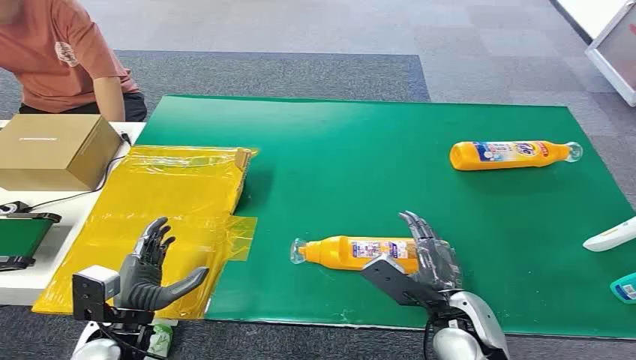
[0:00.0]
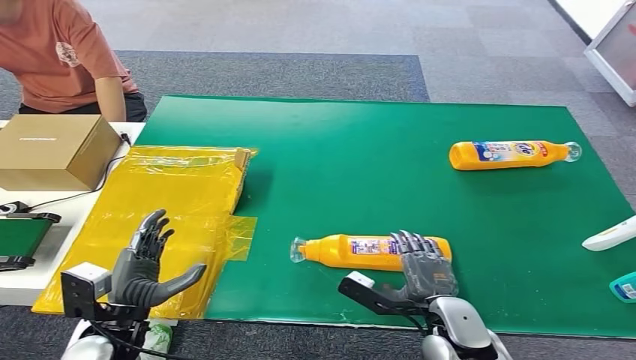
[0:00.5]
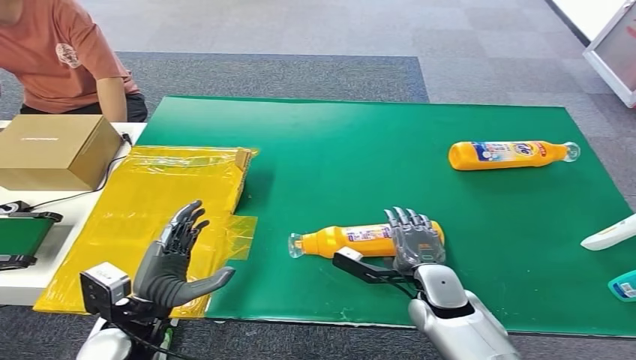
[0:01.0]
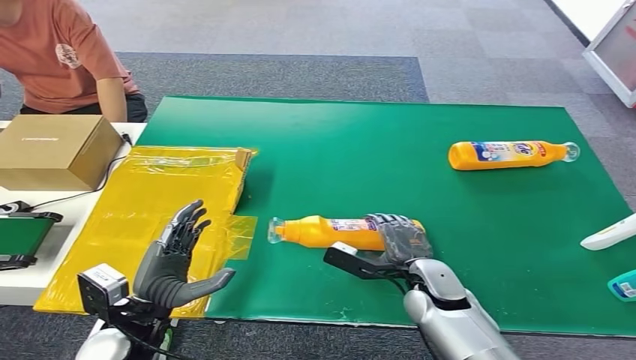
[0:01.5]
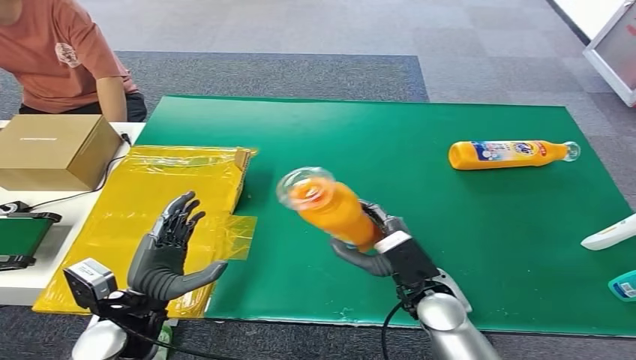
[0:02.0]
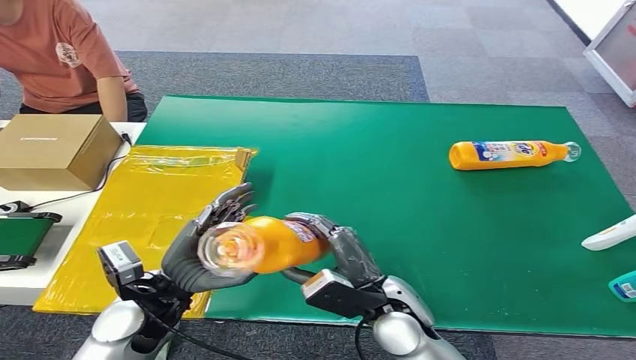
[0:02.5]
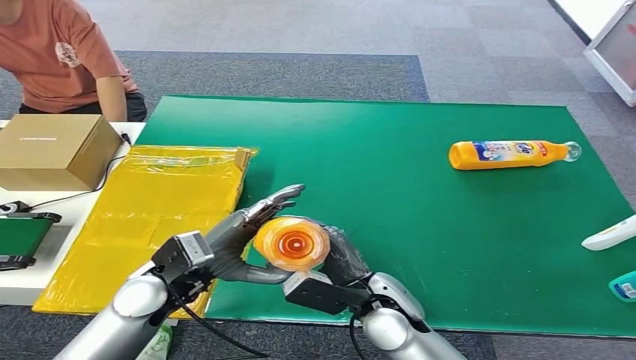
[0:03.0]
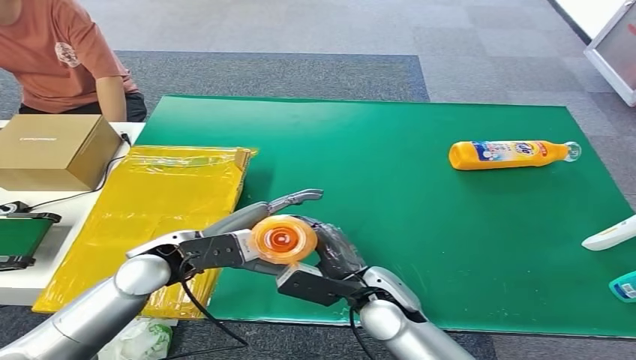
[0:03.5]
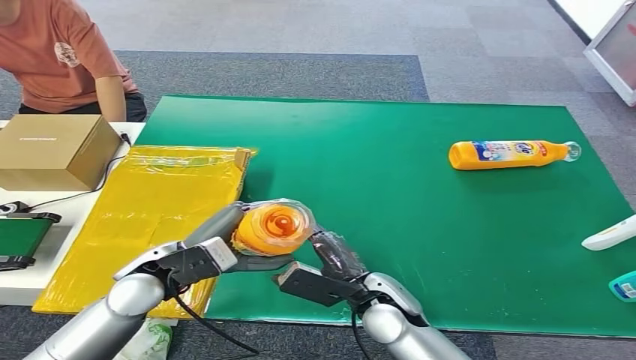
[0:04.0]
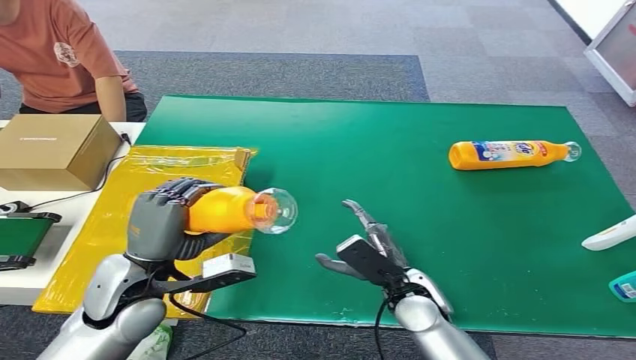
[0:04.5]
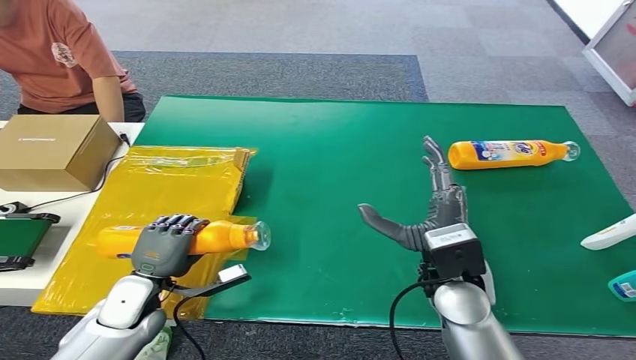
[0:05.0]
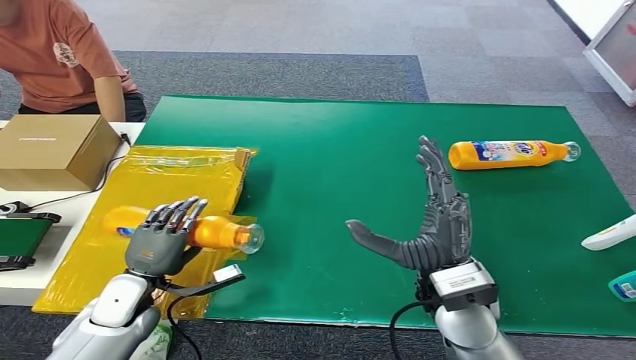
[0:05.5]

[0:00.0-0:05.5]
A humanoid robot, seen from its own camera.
Step, 0:00.0 to 0:01.5: Pick up the bottle from the table.
Step, 0:02.0 to 0:05.5: Turn the bottle to the front side.
0:02.0 to 0:03.5: The right hand goes some 5 cm to the left; the left hand travels forward by some 10 cm.
